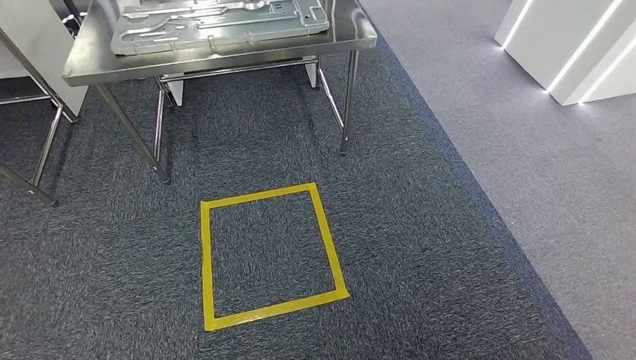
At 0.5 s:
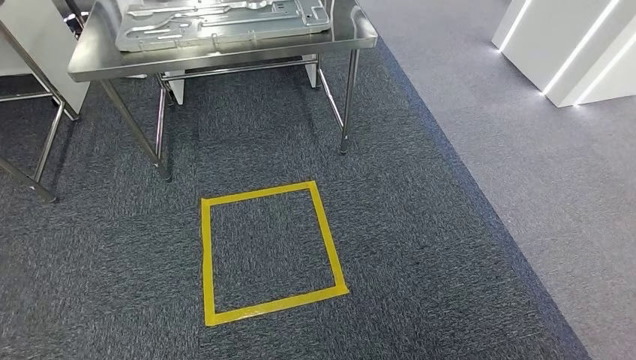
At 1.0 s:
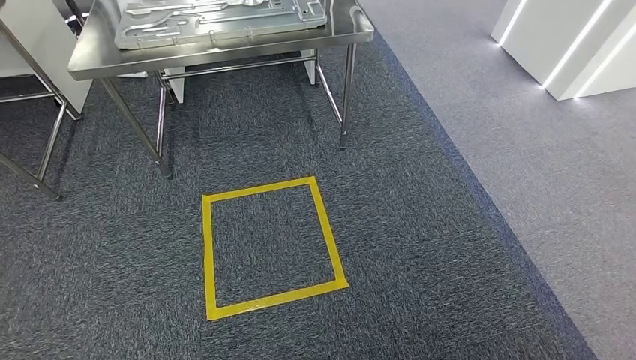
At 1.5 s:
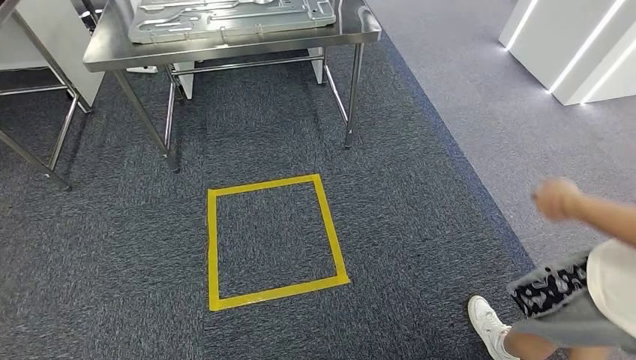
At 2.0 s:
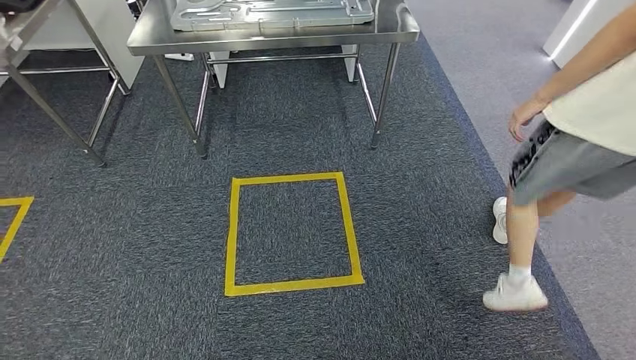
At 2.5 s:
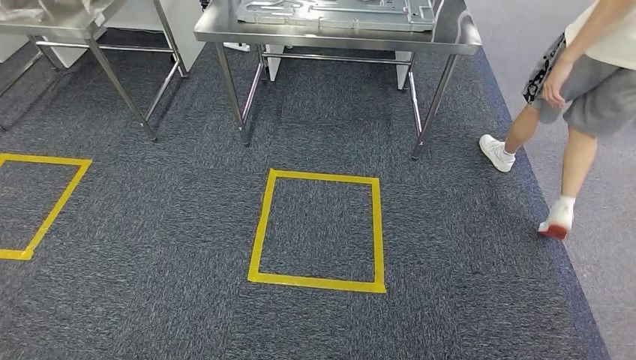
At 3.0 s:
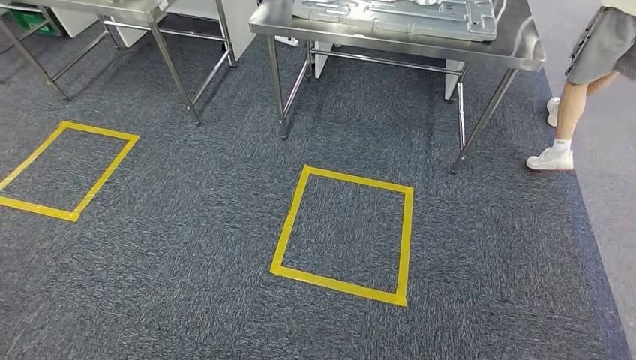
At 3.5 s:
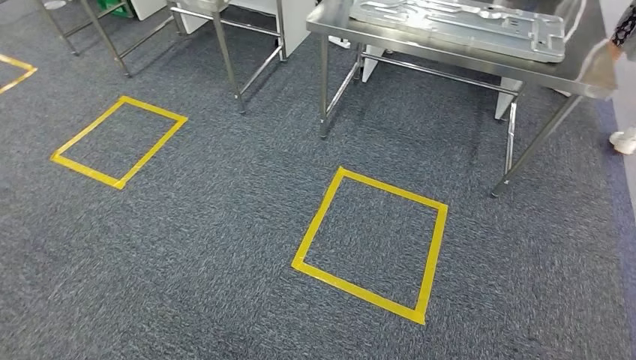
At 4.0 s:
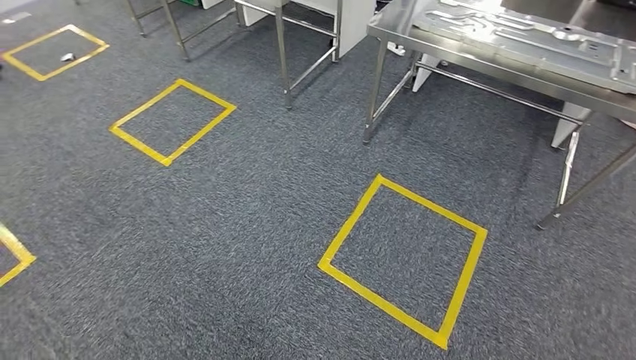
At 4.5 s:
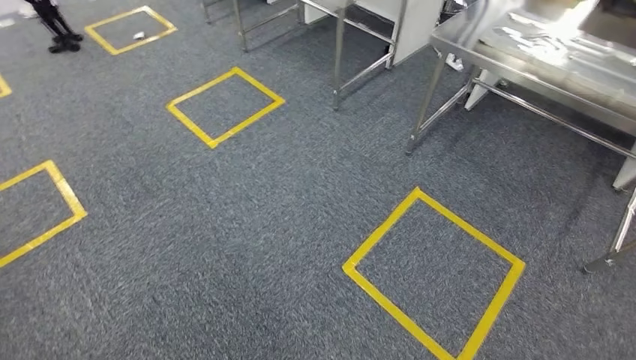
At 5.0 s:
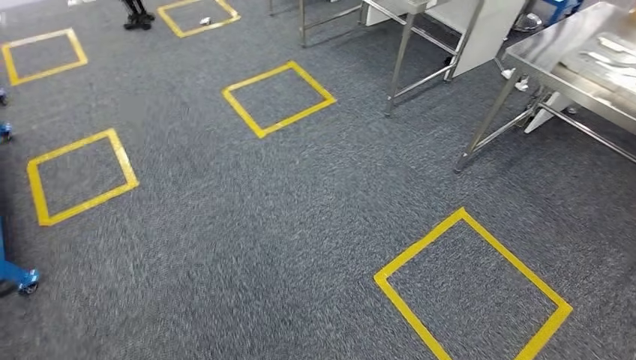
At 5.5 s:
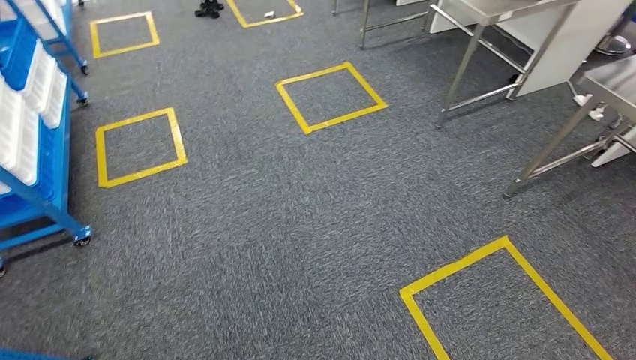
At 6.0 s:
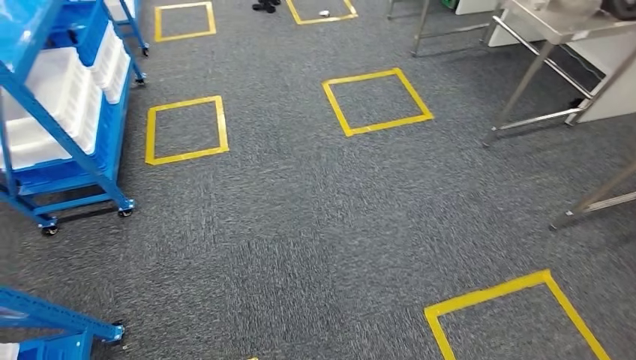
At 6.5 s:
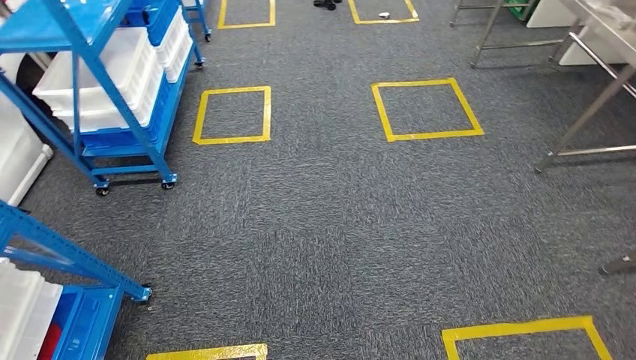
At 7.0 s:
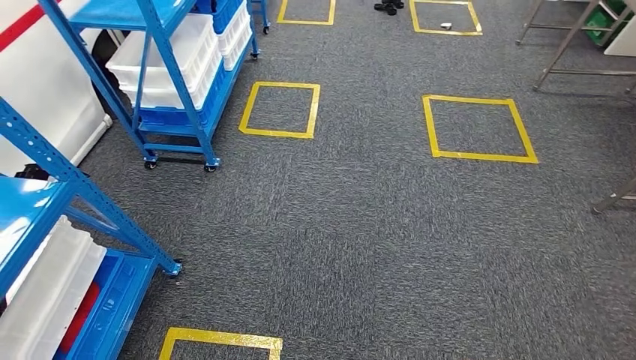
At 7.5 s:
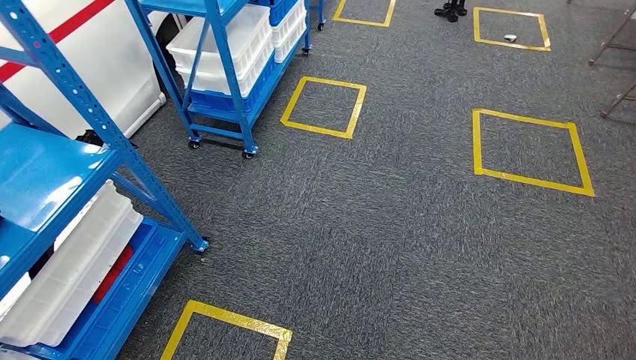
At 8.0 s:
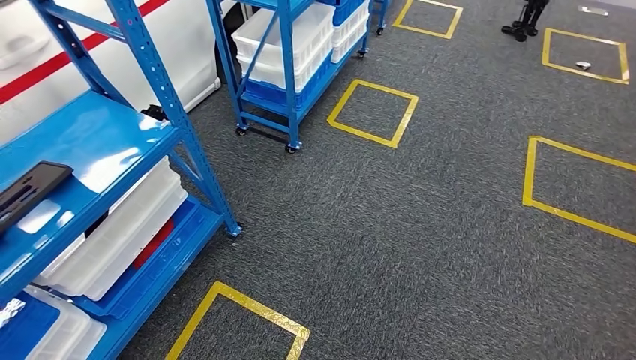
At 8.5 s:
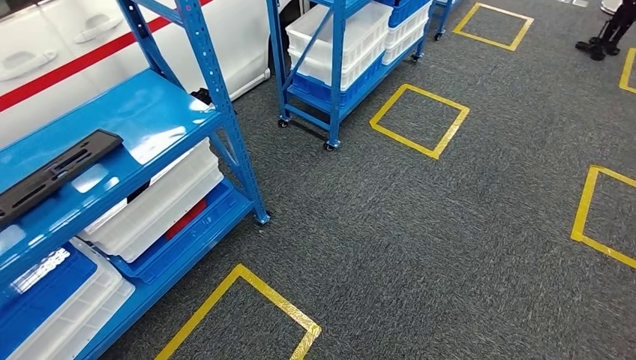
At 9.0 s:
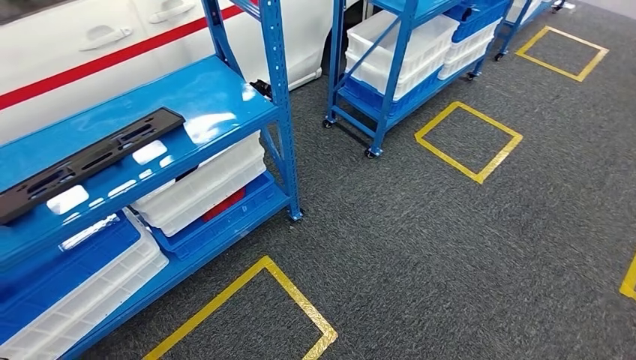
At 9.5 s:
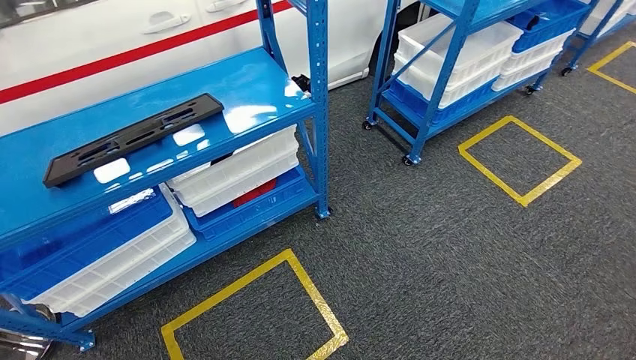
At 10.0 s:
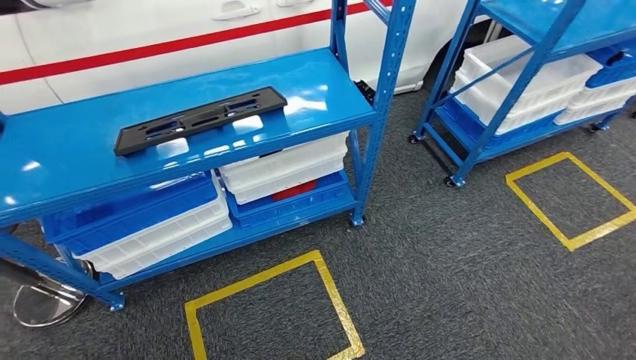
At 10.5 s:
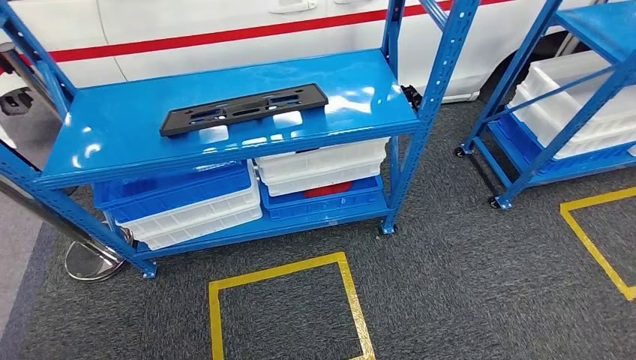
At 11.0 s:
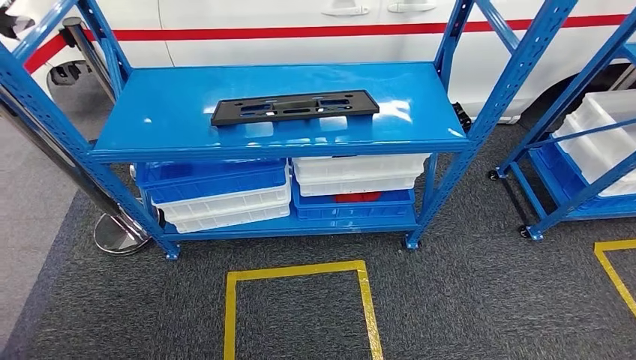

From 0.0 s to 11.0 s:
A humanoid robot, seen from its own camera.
Step, from 0.0 s to 11.0 s: Move to the initial position of the shelf.

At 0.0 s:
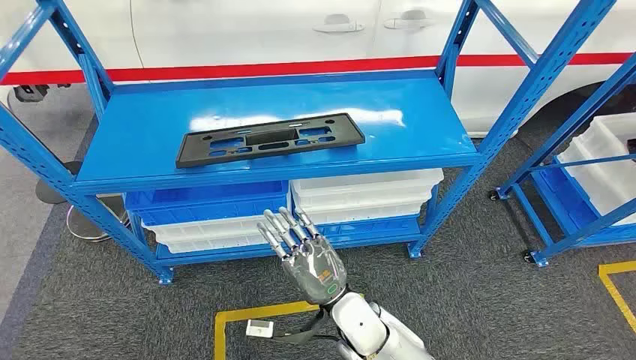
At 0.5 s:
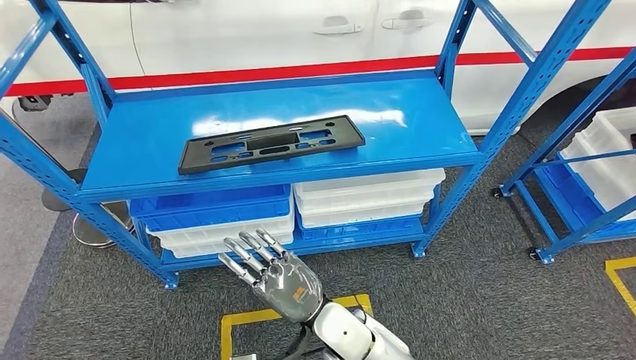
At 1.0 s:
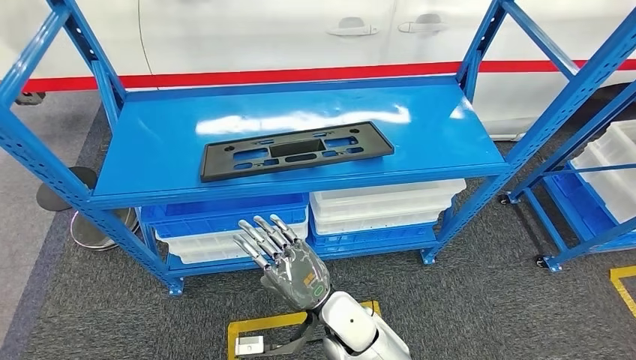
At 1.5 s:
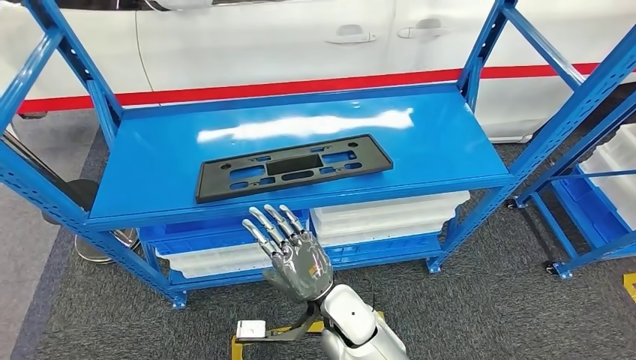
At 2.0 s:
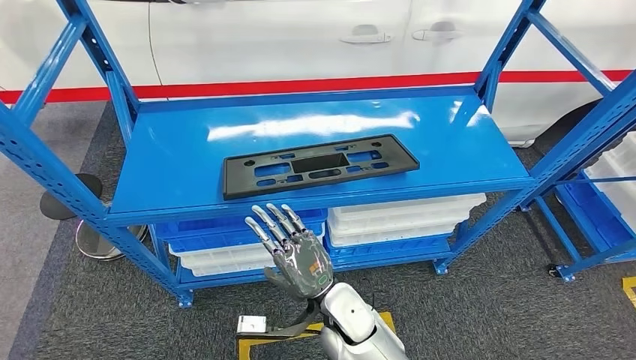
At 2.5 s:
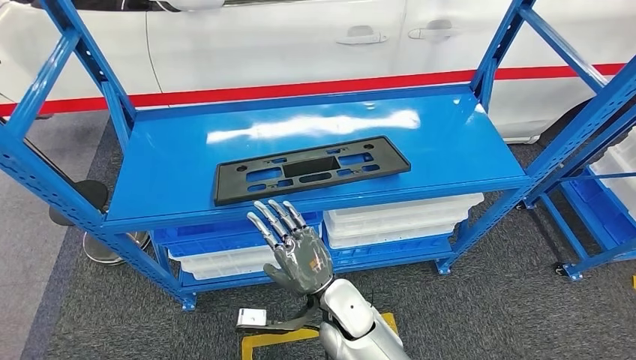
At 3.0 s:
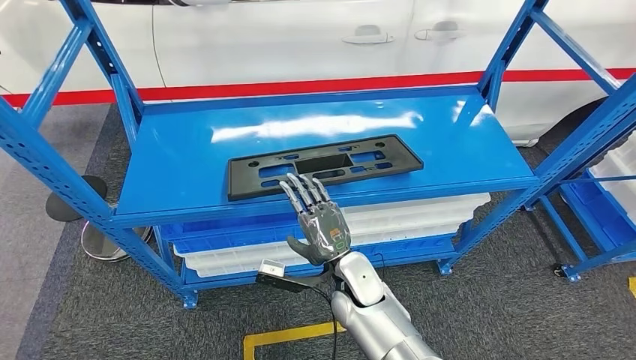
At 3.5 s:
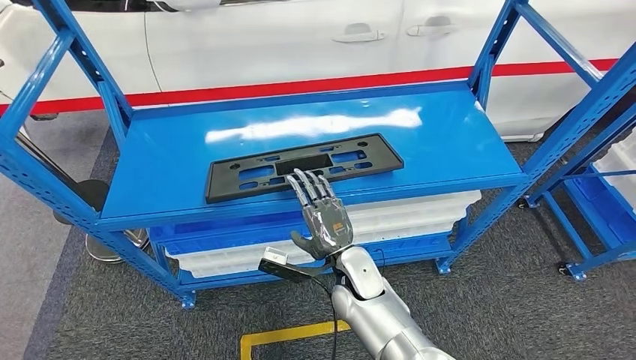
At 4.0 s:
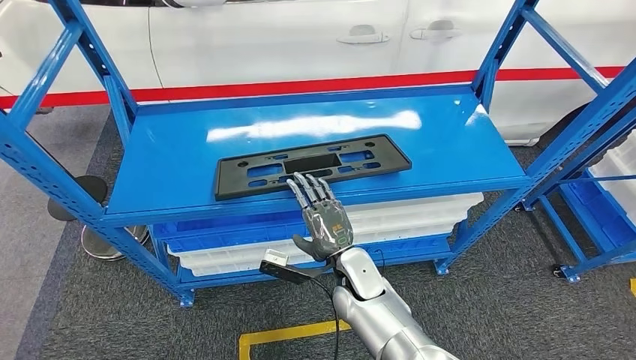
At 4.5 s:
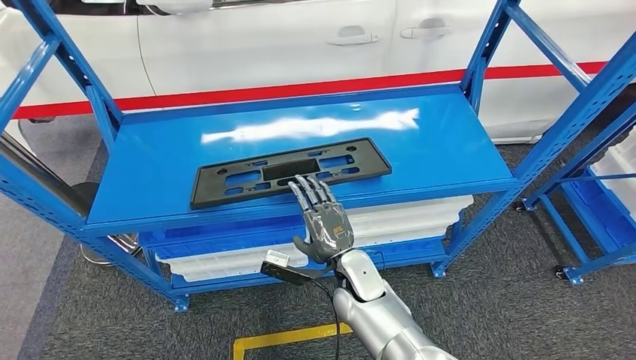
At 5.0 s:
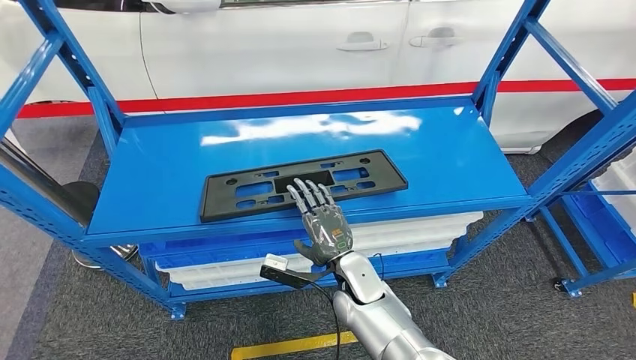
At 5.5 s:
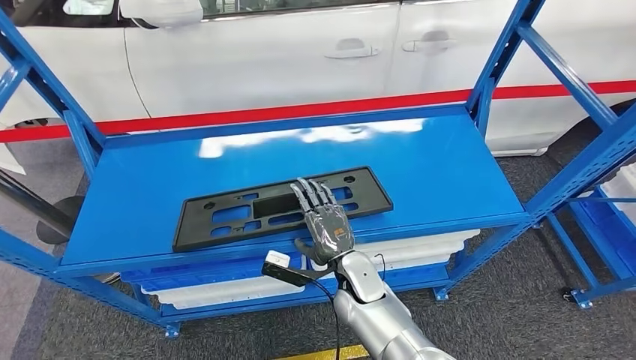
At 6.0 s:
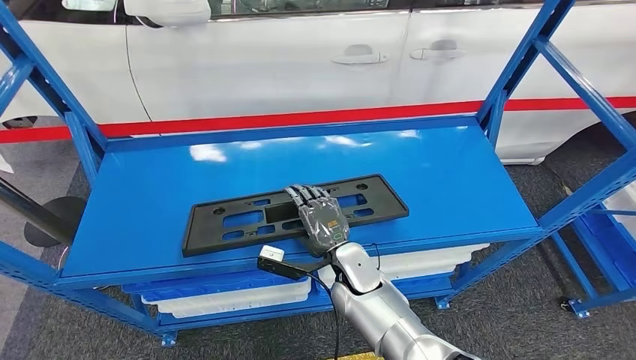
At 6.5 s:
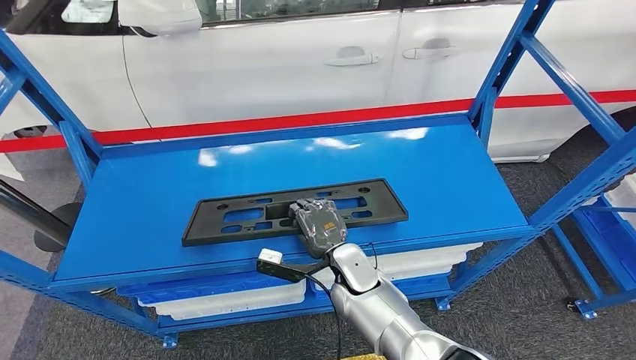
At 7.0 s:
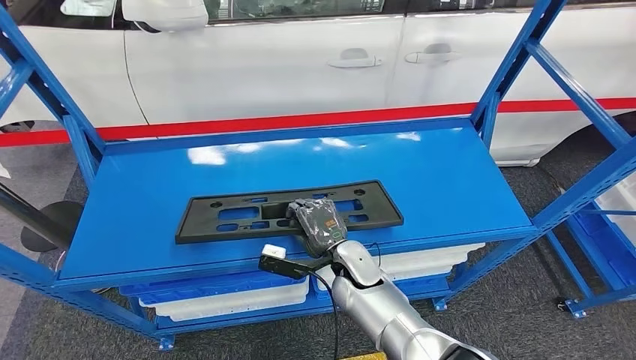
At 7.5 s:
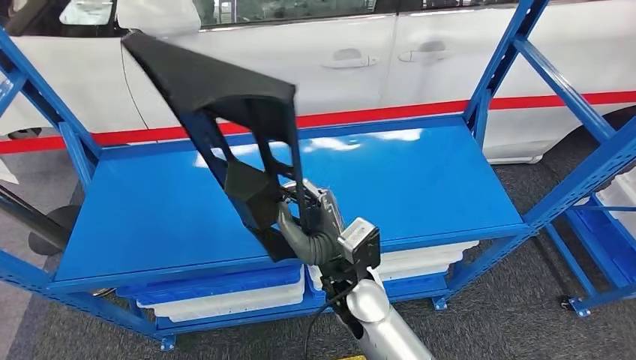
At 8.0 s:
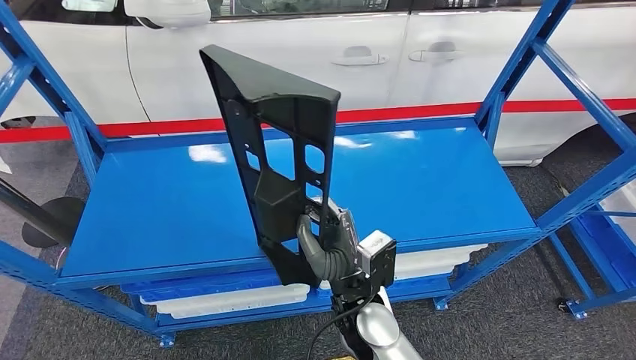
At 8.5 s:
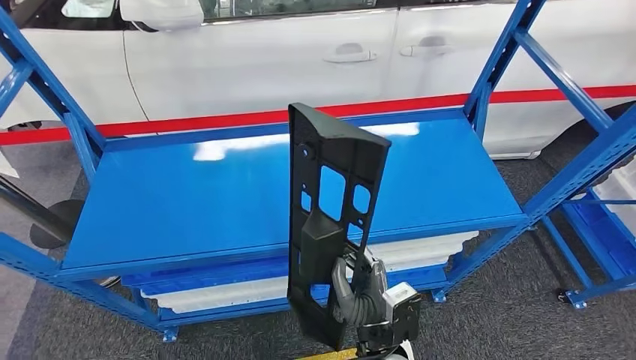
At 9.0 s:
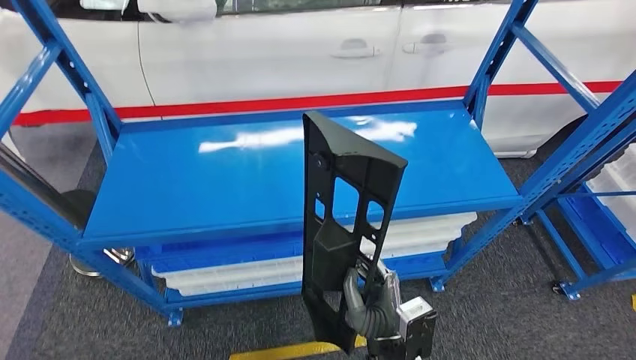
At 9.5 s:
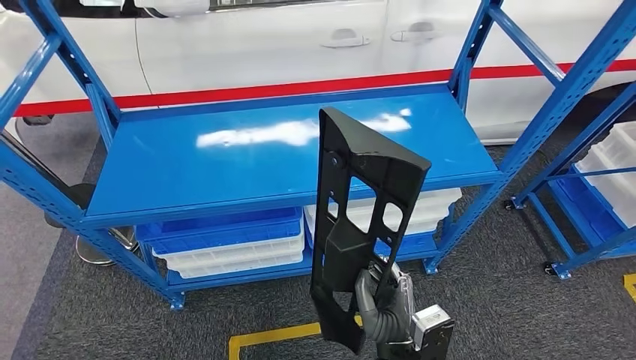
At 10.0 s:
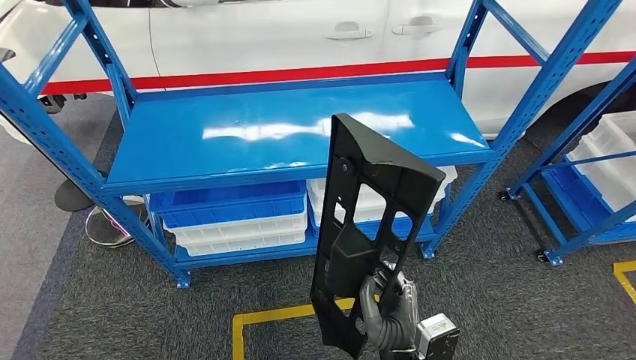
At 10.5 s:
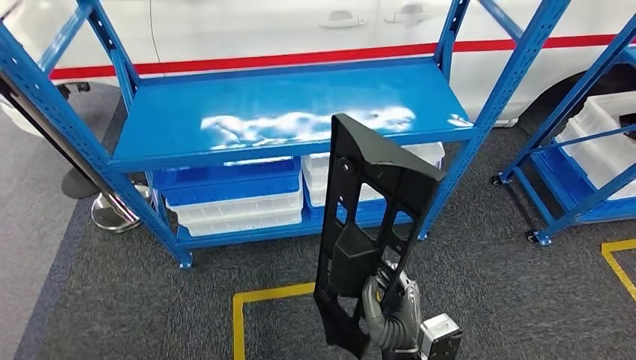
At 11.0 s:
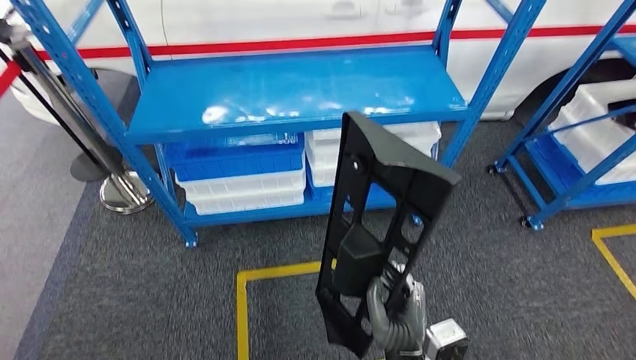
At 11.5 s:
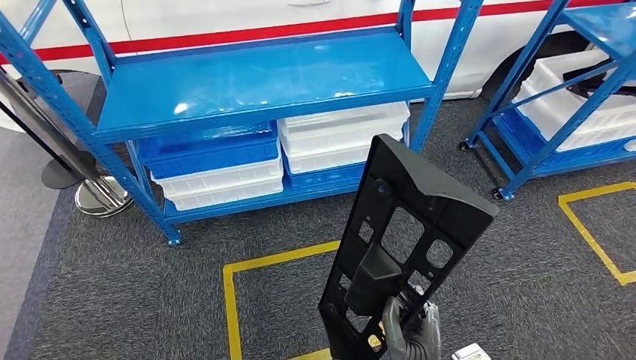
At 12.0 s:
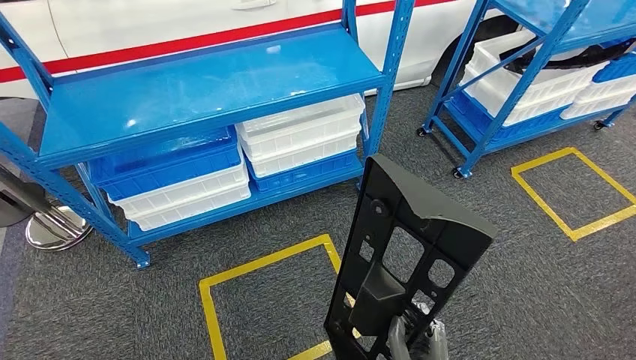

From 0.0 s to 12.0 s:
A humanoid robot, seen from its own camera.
Step, from 0.0 s to 10.0 s: Pick up the large material from the shelf.
From 2.0 s to 4.0 s: The right hand goes some 5 cm forward.
From 6.0 s to 8.0 s: The right hand moves backward and upward, roughly 10 cm.
